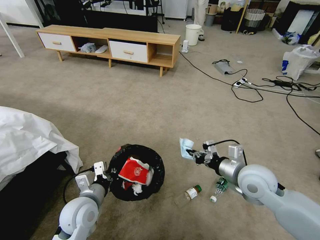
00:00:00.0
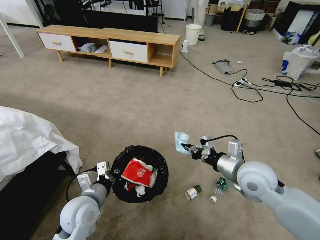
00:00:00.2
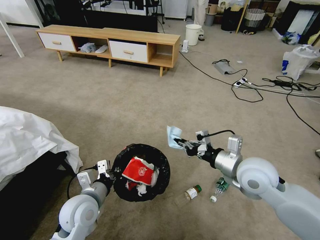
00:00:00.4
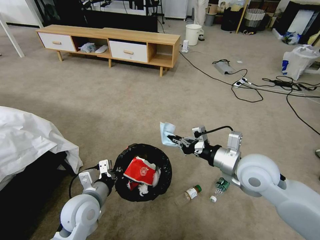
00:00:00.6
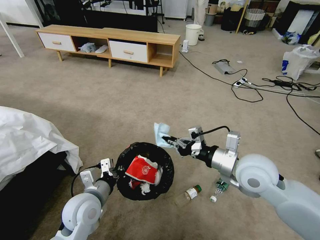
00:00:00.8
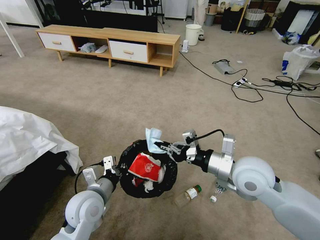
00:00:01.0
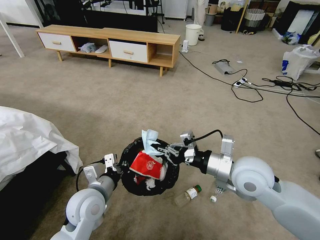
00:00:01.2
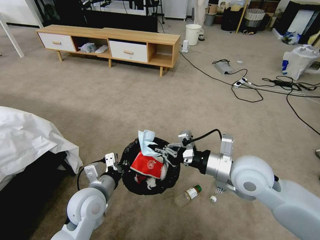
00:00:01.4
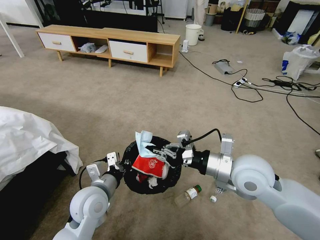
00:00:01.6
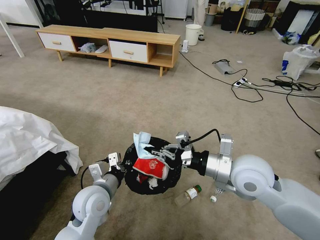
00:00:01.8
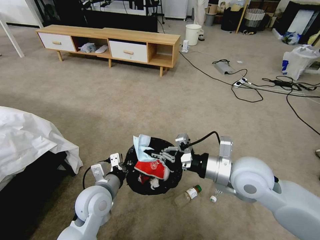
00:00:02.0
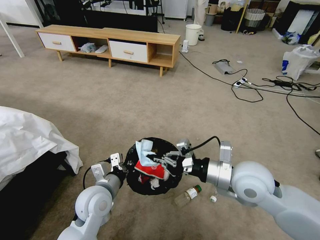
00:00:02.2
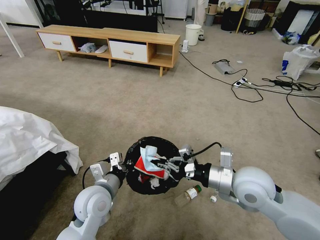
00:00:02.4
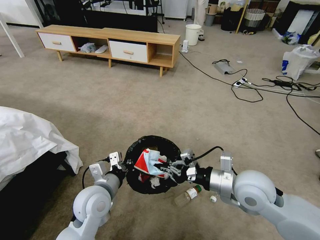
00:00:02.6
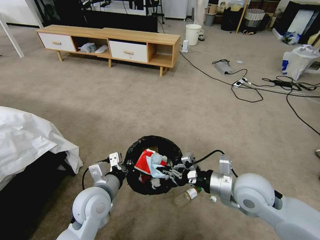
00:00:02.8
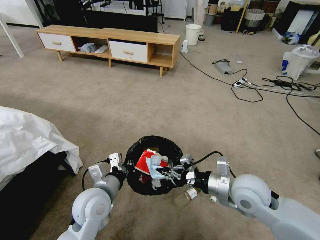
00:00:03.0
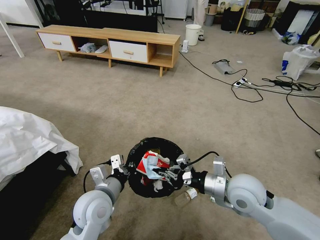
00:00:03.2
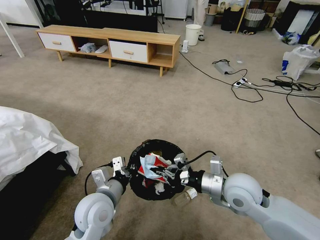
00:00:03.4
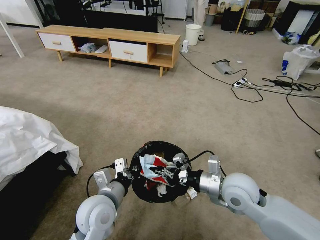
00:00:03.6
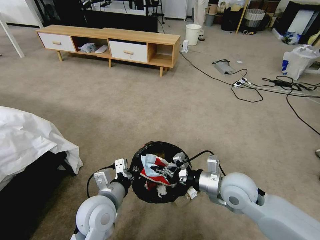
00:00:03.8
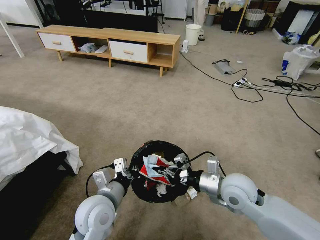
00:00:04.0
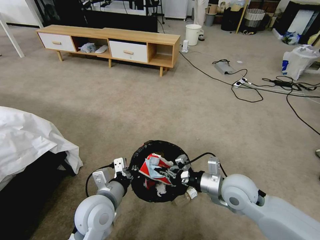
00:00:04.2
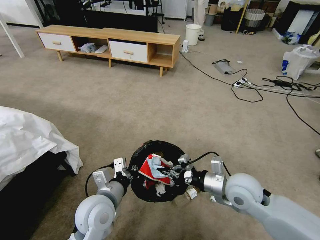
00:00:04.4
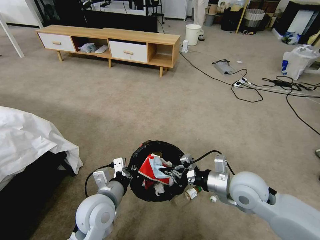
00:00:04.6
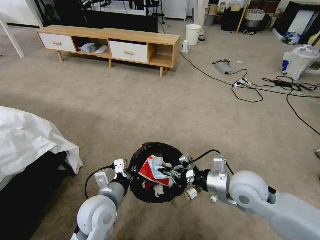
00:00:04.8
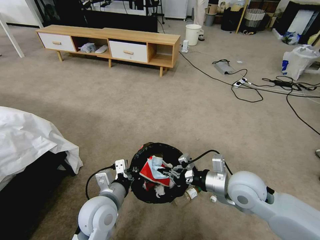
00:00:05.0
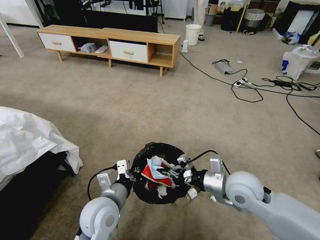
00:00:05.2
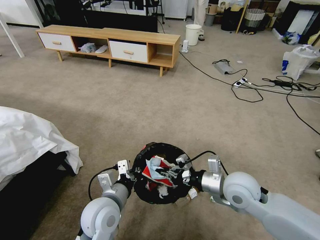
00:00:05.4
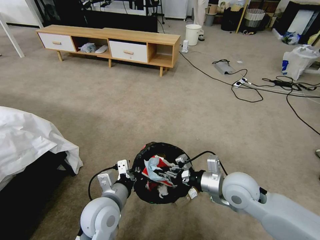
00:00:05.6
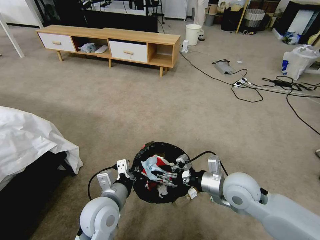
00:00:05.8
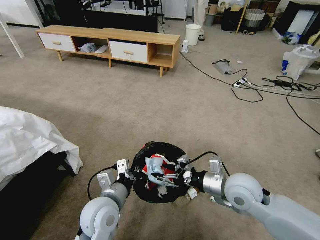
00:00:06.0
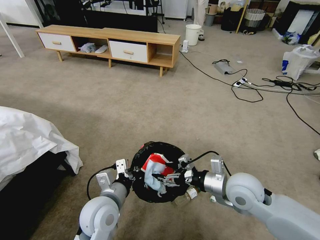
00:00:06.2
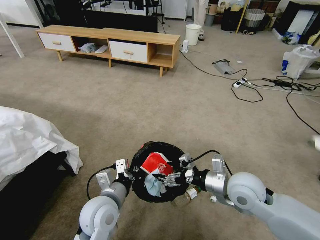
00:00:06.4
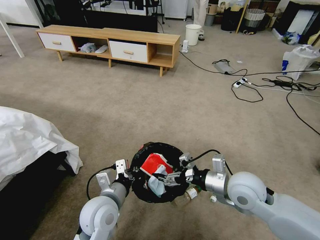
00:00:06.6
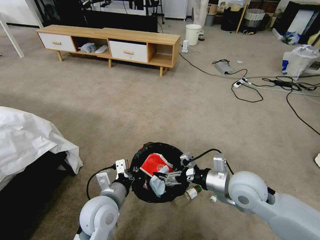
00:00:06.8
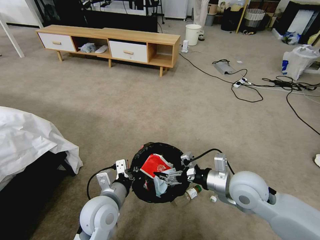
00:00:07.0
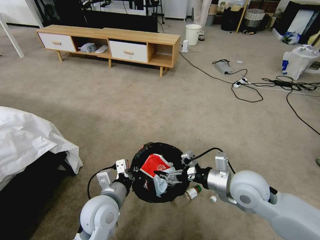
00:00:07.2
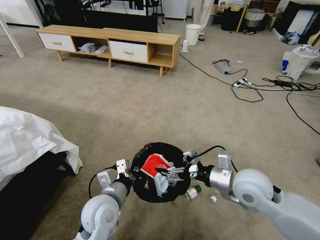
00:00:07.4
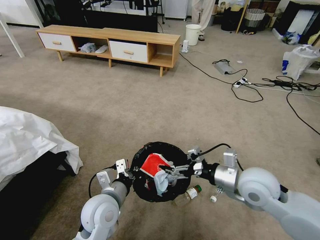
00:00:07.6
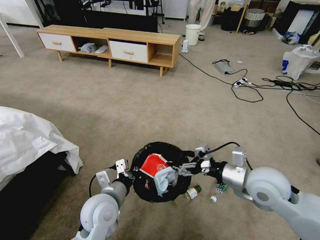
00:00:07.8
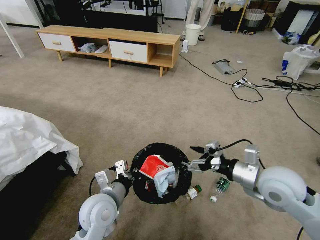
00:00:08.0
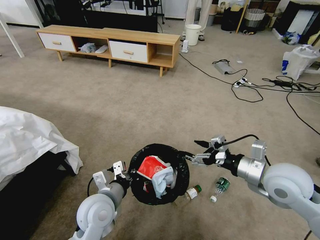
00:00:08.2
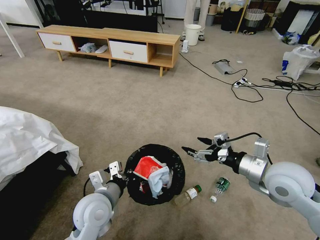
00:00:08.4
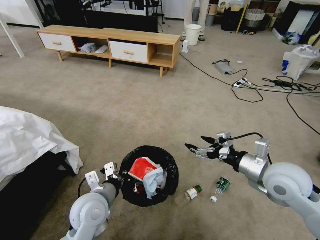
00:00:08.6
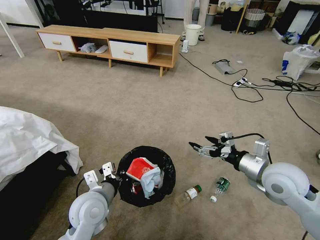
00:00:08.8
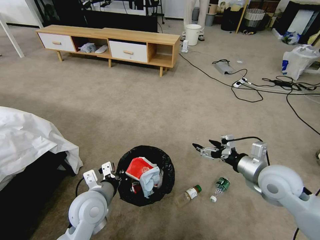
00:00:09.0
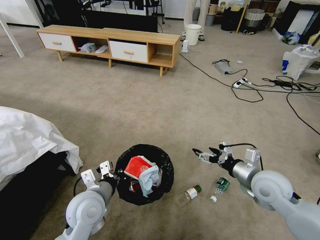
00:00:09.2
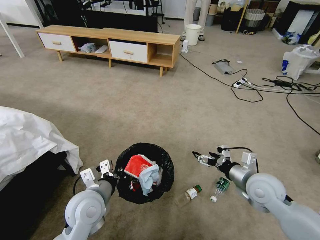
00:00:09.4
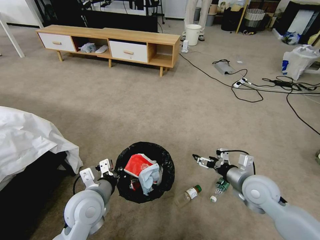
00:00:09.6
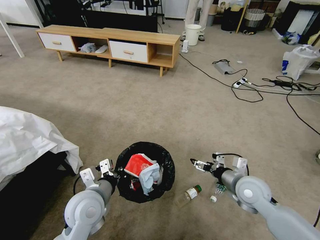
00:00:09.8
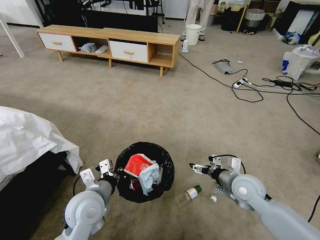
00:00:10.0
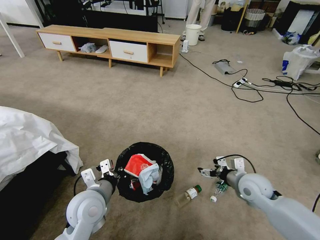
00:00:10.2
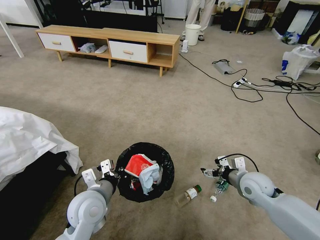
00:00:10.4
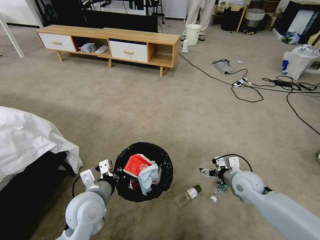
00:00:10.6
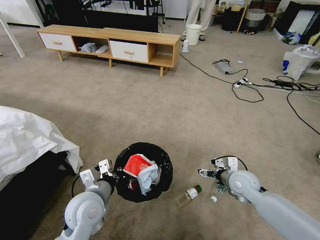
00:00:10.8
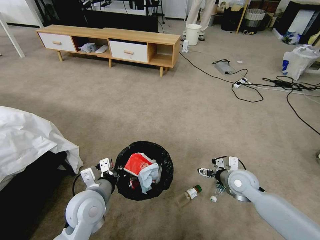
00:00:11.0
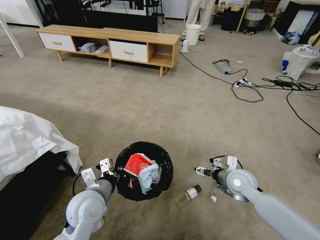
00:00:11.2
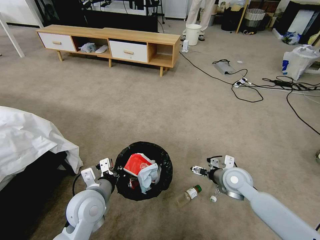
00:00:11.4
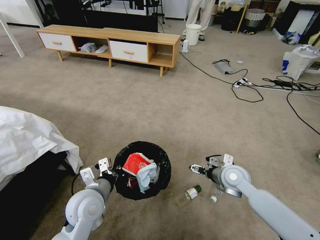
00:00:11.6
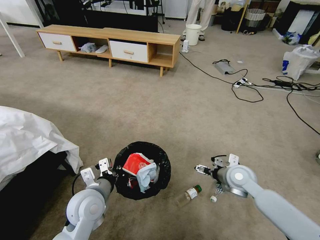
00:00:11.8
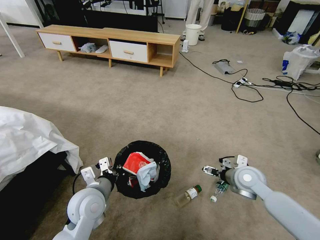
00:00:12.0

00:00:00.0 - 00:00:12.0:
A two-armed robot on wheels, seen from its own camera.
Task of the whole recording: Pick up the trash bin and place the garbage on the floor into it.
00:00:00.0 - 00:00:01.6: The right gripper goes some 10 cm upward and to the left; the left gripper changes place by some 5 cm.
00:00:01.6 - 00:00:03.0: The right gripper heads downward, covering about 5 cm.
00:00:03.0 - 00:00:04.4: There are only small adjustments of the grippers.
00:00:04.4 - 00:00:06.0: The right gripper opens up.
00:00:06.0 - 00:00:07.6: The grippers move only a little.
00:00:07.6 - 00:00:09.0: The right gripper goes roughly 5 cm to the right.
00:00:09.0 - 00:00:10.4: The right gripper shifts roughly 10 cm downward.

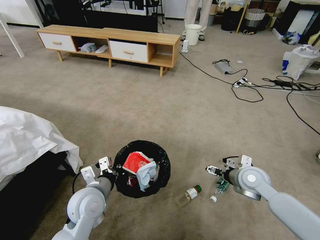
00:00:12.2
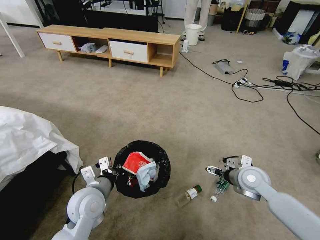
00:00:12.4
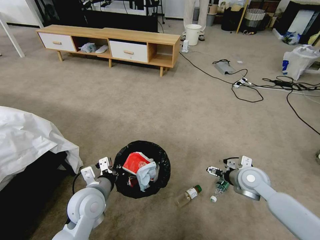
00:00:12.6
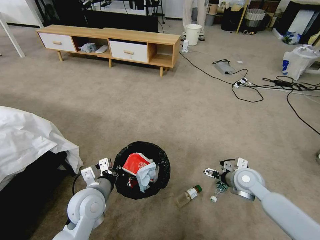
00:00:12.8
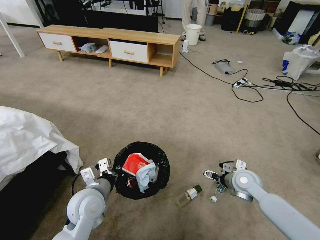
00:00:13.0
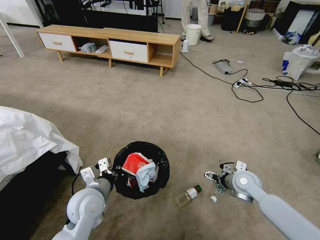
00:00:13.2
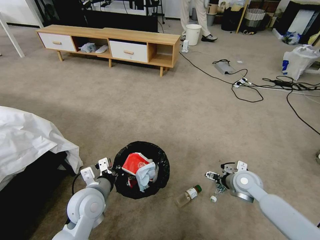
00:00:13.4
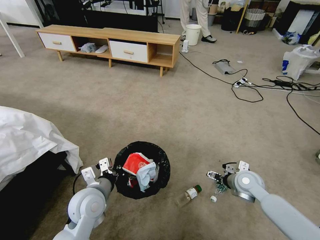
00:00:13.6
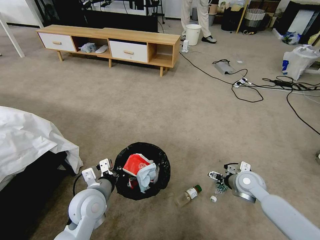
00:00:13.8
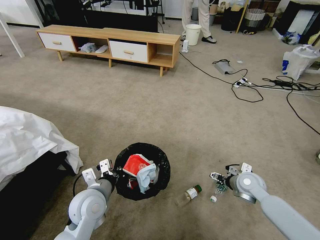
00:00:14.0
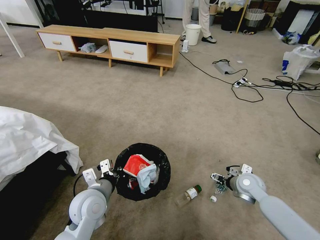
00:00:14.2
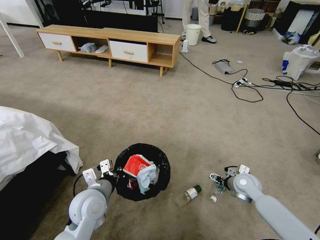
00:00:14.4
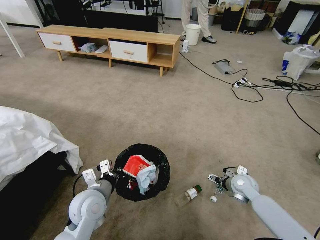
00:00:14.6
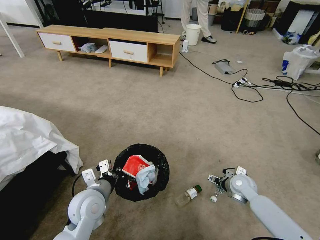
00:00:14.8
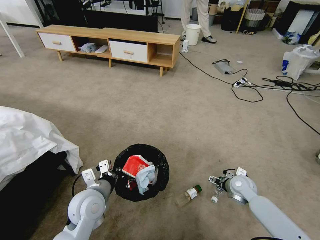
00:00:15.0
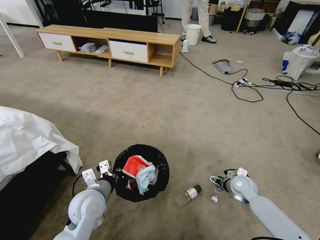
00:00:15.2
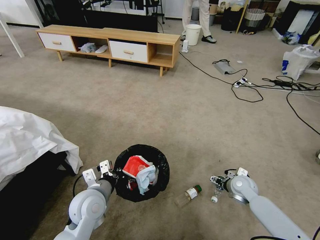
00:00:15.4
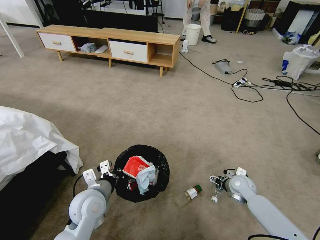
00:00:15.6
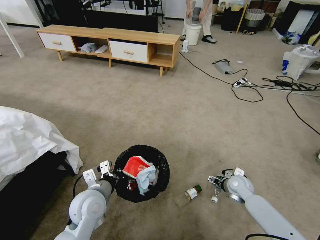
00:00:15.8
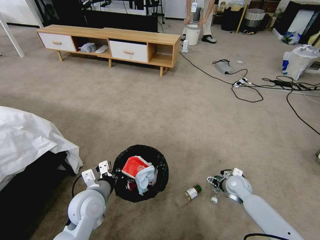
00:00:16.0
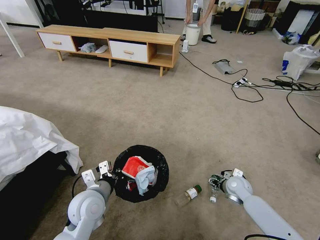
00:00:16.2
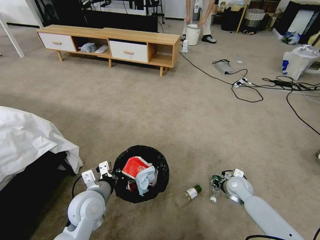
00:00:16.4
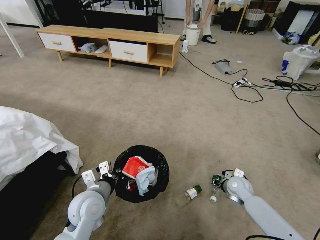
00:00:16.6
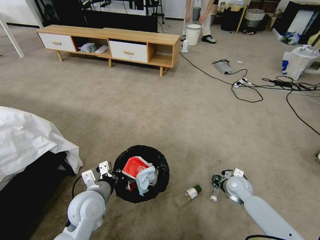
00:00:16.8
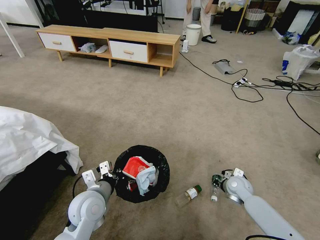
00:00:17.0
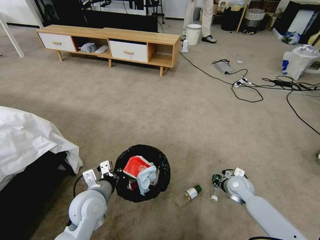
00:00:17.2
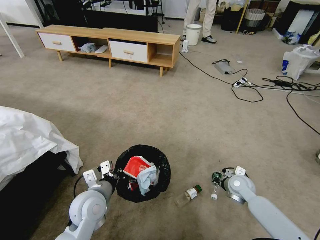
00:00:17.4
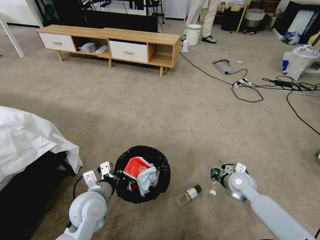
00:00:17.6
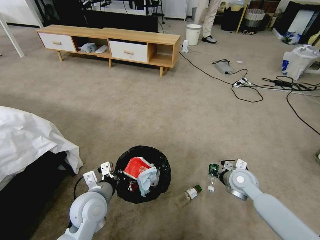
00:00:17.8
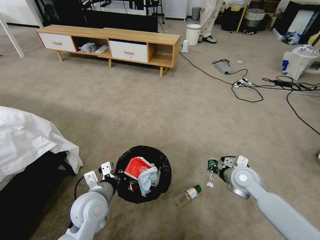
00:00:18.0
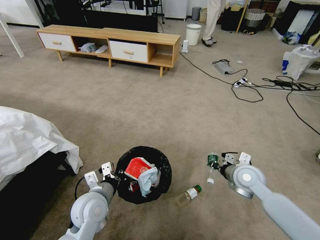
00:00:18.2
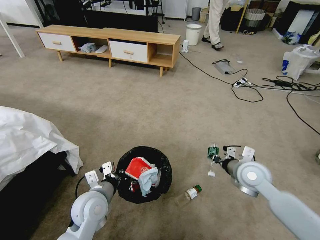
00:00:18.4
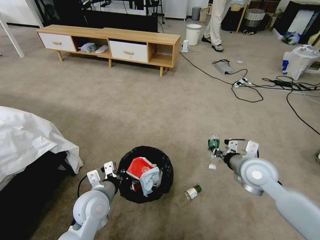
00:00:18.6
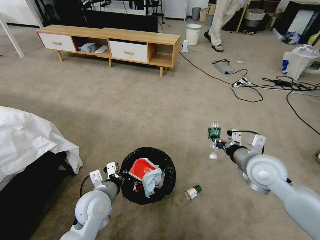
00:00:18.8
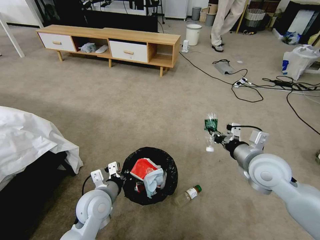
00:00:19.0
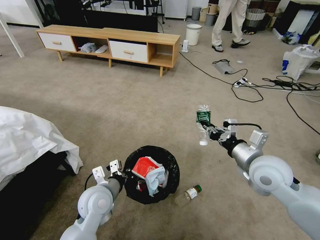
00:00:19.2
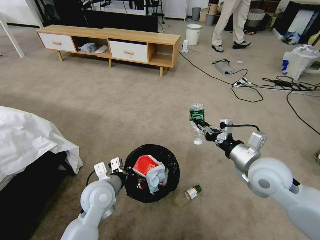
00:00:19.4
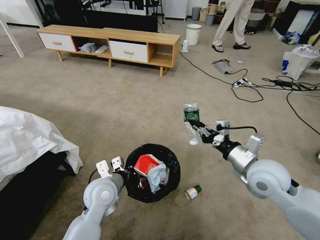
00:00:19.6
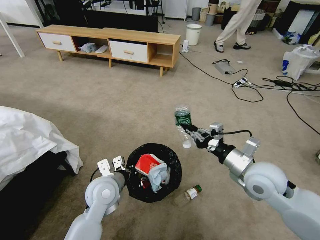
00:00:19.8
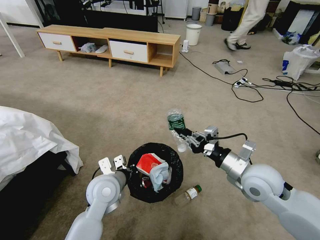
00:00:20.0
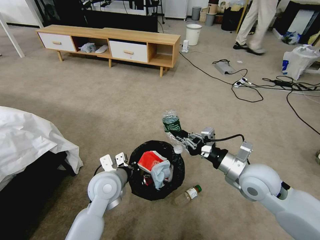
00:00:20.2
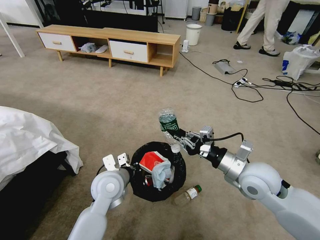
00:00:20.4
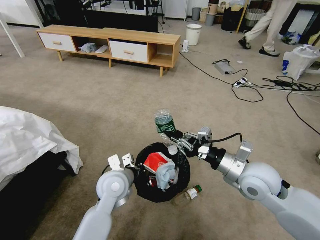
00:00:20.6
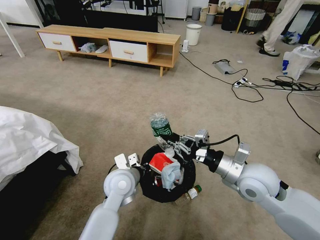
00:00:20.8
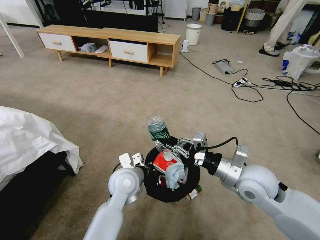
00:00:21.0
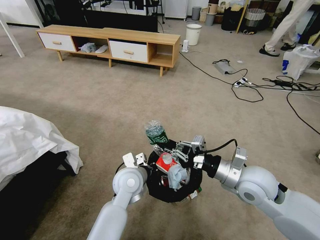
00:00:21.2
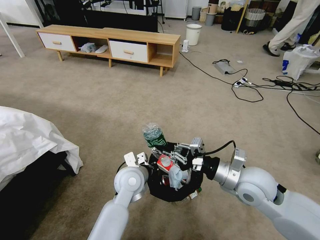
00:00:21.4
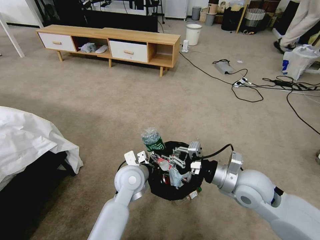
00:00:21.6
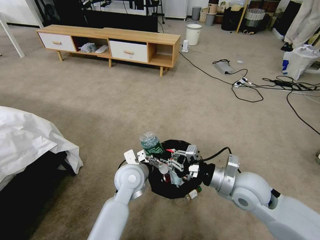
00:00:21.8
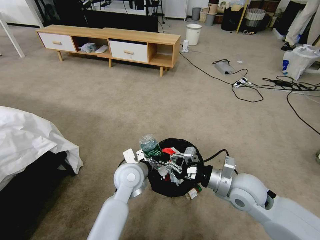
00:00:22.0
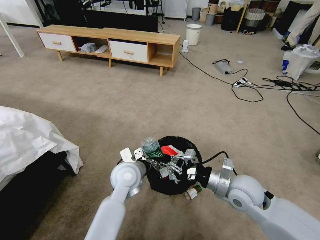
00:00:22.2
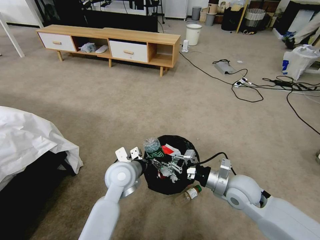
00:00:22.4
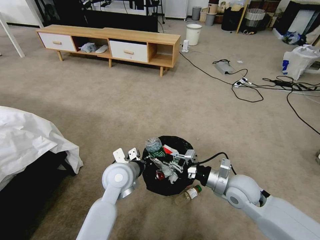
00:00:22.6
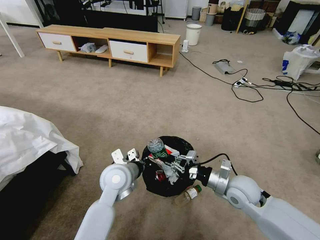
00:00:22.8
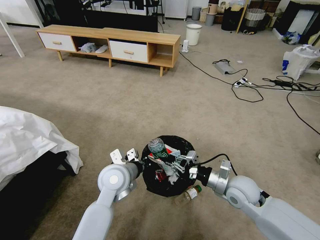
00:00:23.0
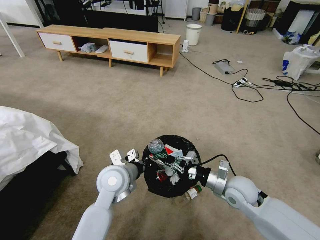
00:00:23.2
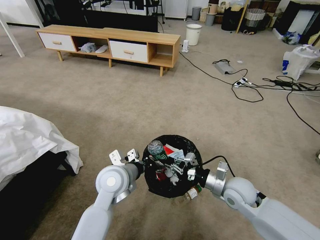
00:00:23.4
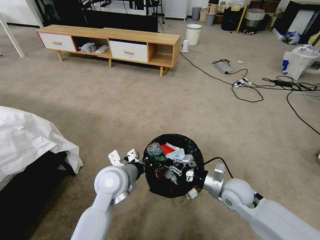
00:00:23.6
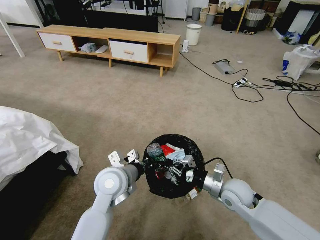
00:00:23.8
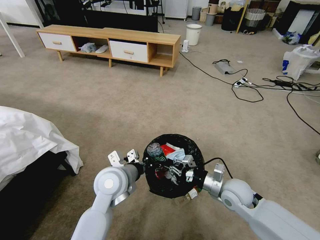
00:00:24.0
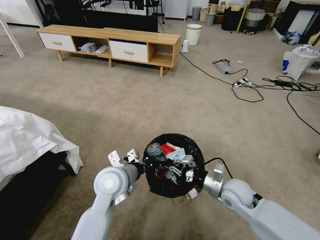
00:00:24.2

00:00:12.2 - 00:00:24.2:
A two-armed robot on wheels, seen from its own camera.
Task of the whole recording: Pick up the trash bin and place the garbage on the floor into it.
00:00:12.2 - 00:00:13.8: There are only small adjustments of the grippers.
00:00:13.8 - 00:00:15.2: The right gripper travels downward by some 5 cm.
00:00:15.2 - 00:00:16.6: The right gripper closes its fingers.
00:00:16.6 - 00:00:18.2: The right gripper travels upward by approximately 15 cm.
00:00:18.2 - 00:00:19.8: The right gripper goes some 10 cm upward; the left gripper ends up about 5 cm from where it was.
00:00:19.8 - 00:00:21.2: The left gripper goes some 5 cm to the right.
00:00:21.2 - 00:00:22.6: The right gripper travels downward by roughly 10 cm.
00:00:22.6 - 00:00:24.2: The grippers stay close to where they were, moving slightly.
